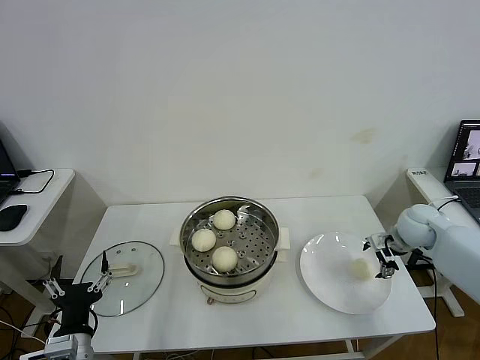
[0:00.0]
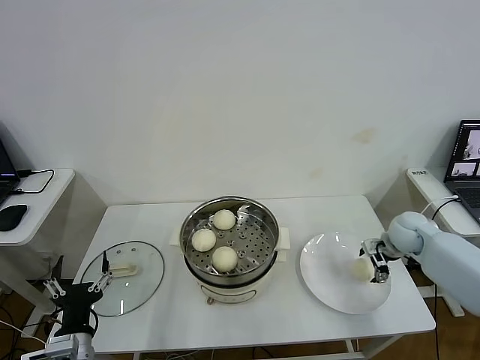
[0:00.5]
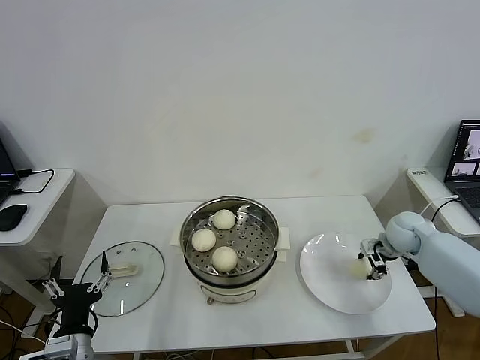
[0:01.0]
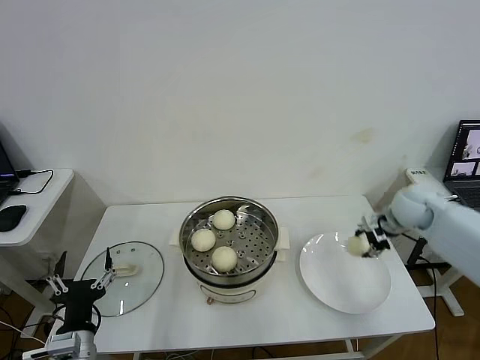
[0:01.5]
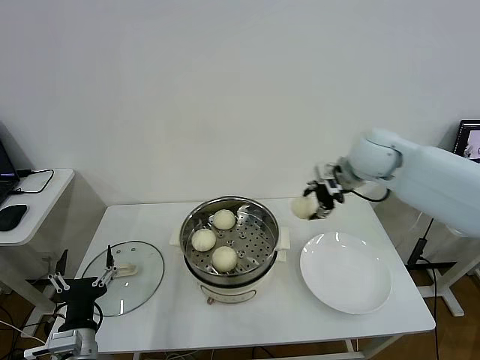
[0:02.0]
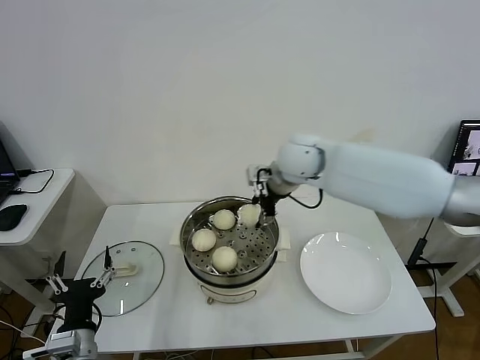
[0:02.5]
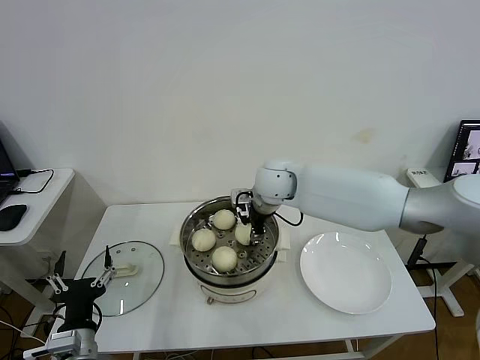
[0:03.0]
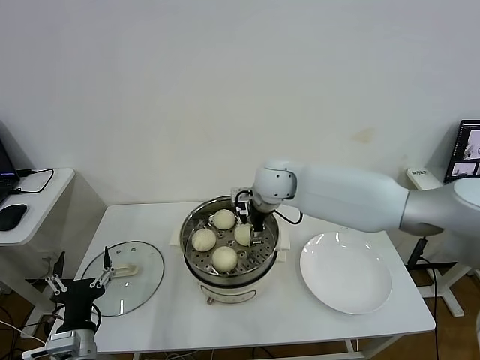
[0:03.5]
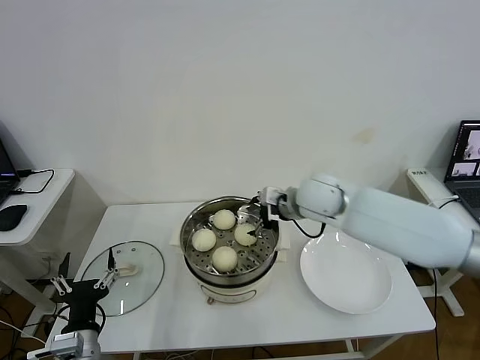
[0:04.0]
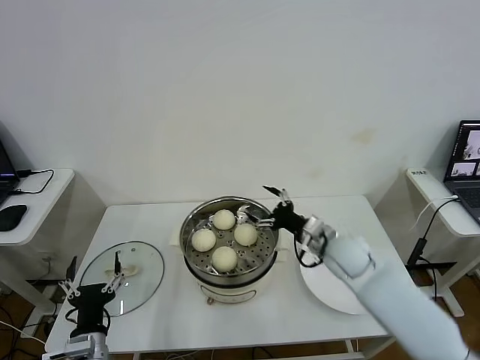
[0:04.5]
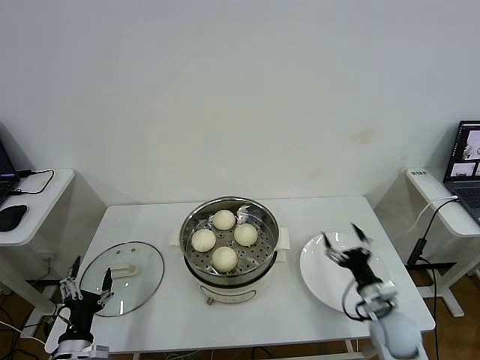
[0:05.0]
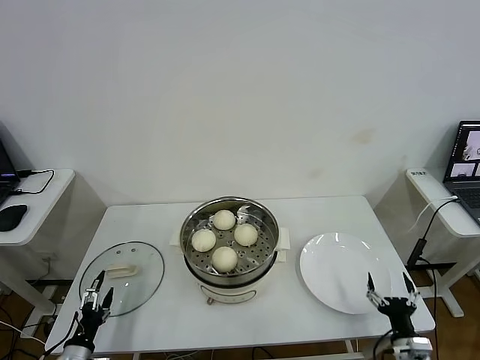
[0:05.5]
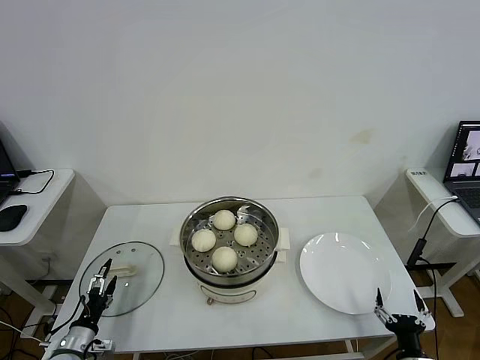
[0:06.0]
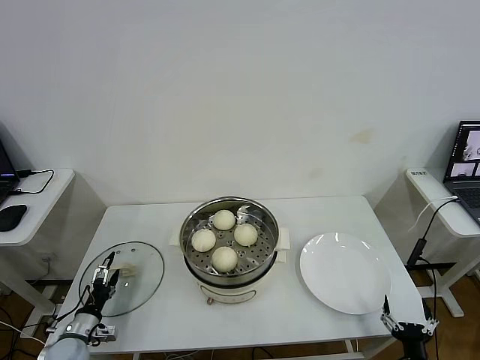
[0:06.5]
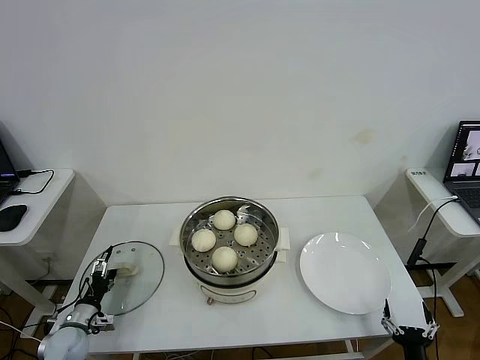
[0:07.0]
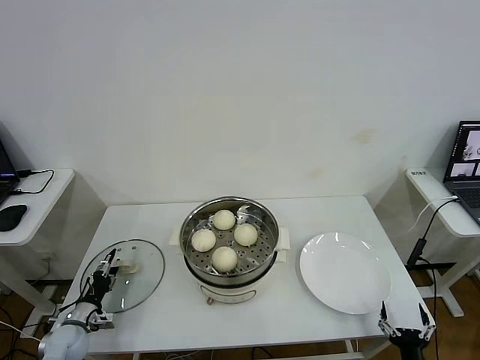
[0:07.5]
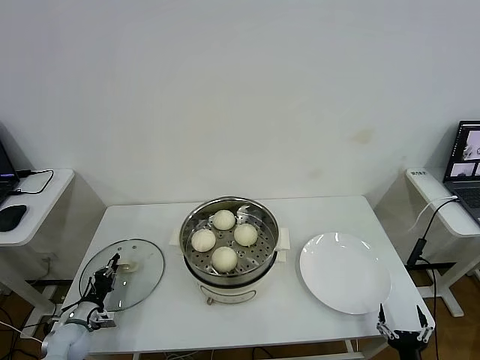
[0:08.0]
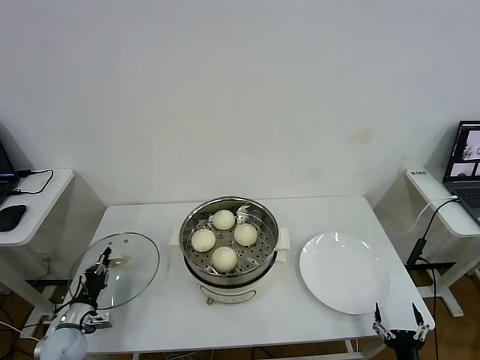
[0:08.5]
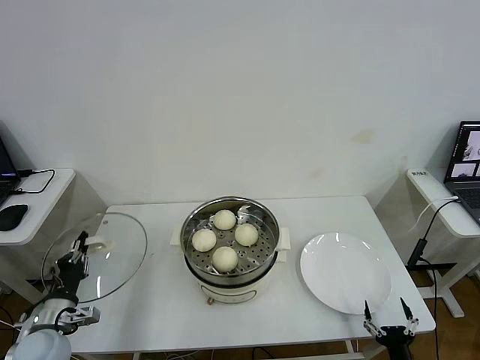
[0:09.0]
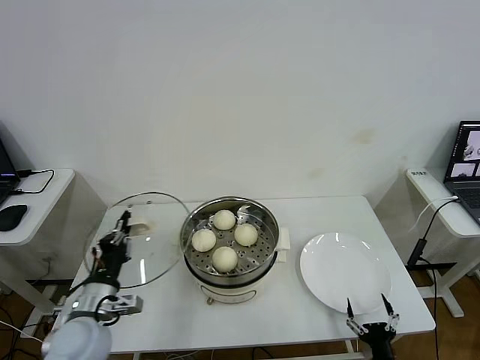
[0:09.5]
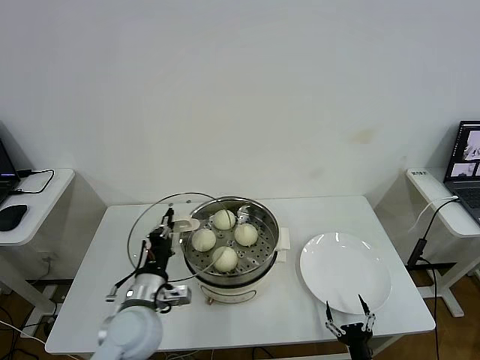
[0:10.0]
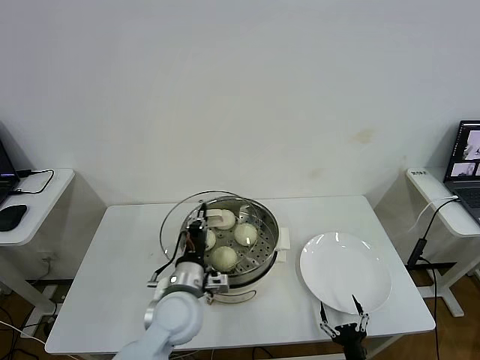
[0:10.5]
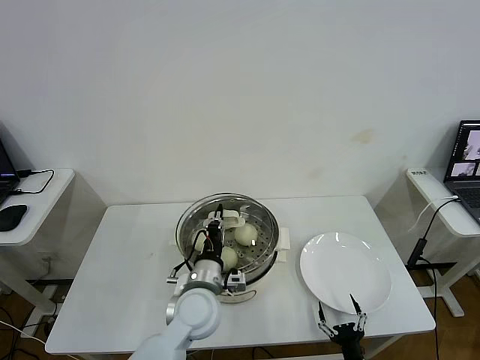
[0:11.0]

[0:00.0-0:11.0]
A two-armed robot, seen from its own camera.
Step, 0:01.5 to 0:03.0: Place the baozi on the steamer with right gripper.
Step, 0:03.5 to 0:08.0: Grasp the pot lid with left gripper.
0:00.0 to 0:02.0: The right gripper heads upward and to the left, covering roughly 25 cm, and closes up.
0:02.0 to 0:03.5: The right gripper shifts about 20 cm to the left and downward, and opens.
0:03.5 to 0:05.5: The right gripper is displaced backward, to the right and downward by roughly 50 cm. Meanwhile the left gripper goes some 15 cm downward and to the left.
0:05.5 to 0:07.5: The right gripper moves backward, about 5 cm, while the left gripper shifts about 10 cm forward.
0:07.5 to 0:09.0: The left gripper heads upward, covering about 10 cm, and closes up.
0:09.0 to 0:11.0: The right gripper moves to the left, approximately 10 cm. Meanwhile the left gripper goes about 30 cm to the right.

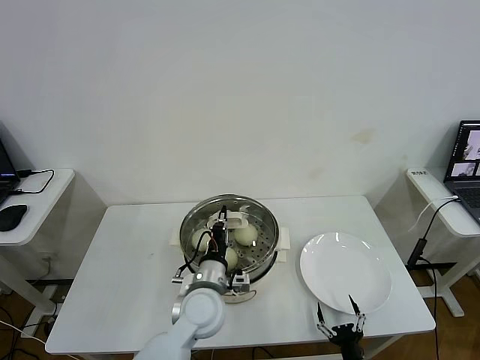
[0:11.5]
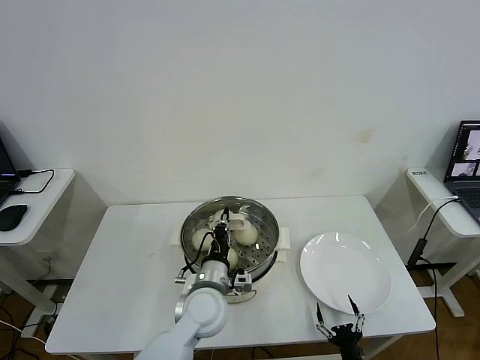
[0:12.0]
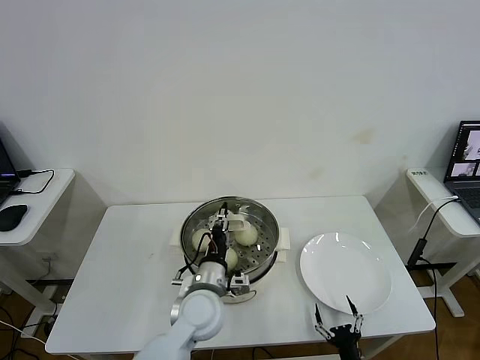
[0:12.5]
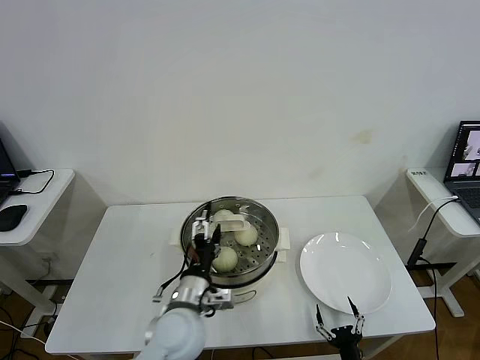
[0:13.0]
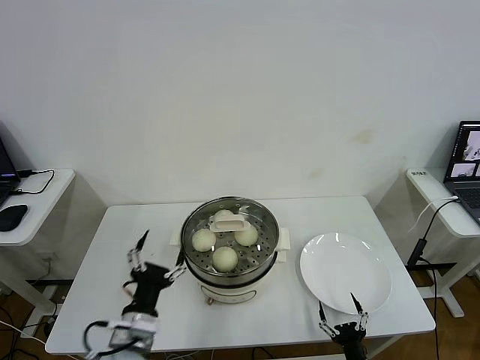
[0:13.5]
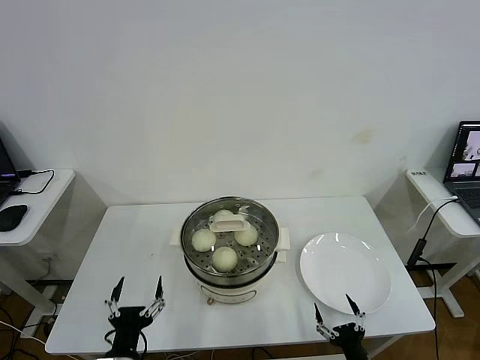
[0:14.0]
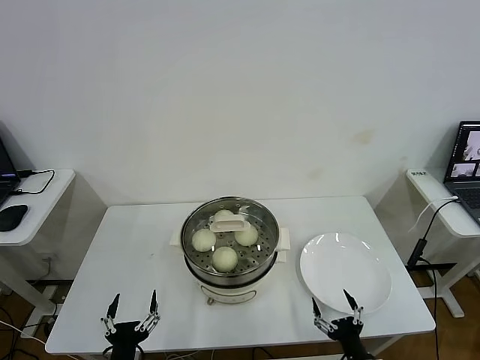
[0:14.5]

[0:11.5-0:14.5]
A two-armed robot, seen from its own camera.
0:11.5 to 0:13.0: The left gripper opens its fingers.
0:13.0 to 0:14.5: The right gripper is displaced upward by roughly 5 cm. Meanwhile the left gripper is displaced backward, to the left and downward by roughly 25 cm.

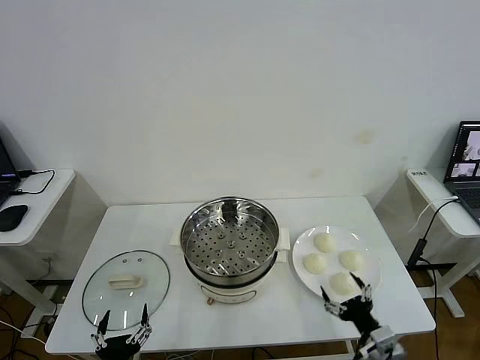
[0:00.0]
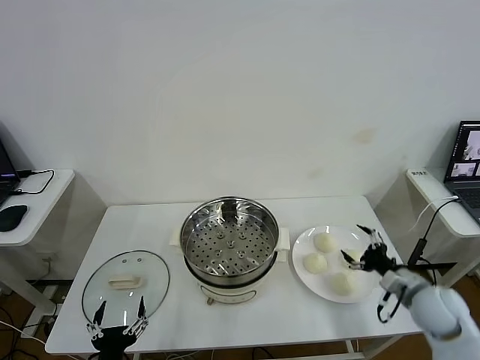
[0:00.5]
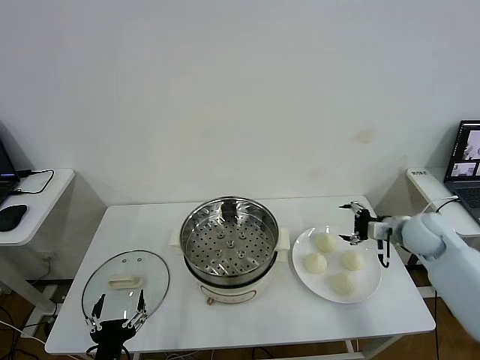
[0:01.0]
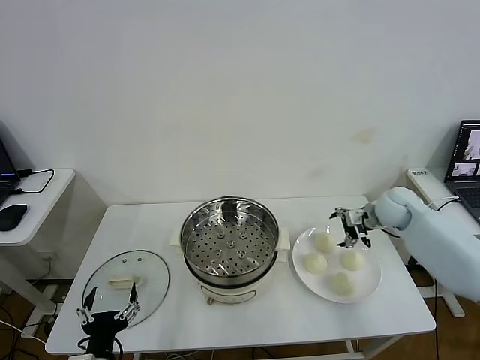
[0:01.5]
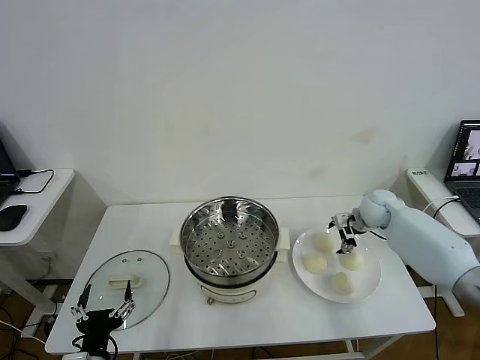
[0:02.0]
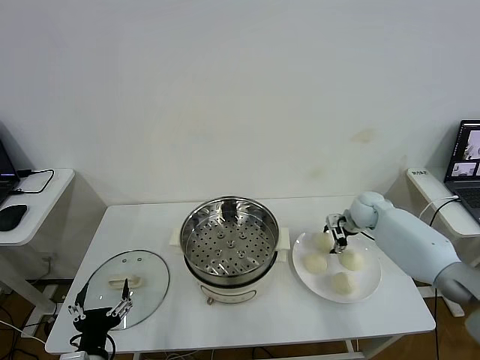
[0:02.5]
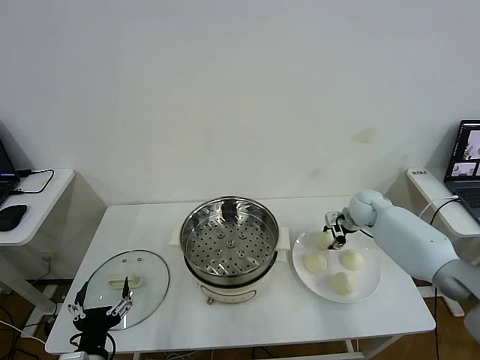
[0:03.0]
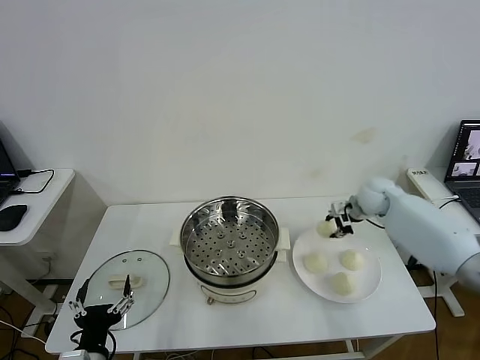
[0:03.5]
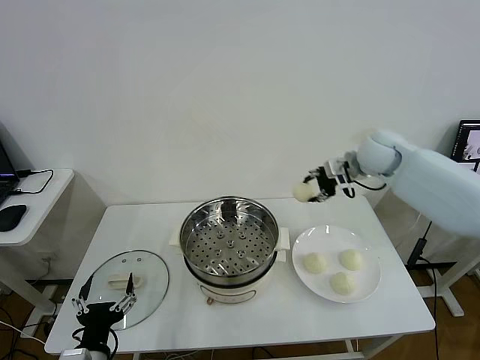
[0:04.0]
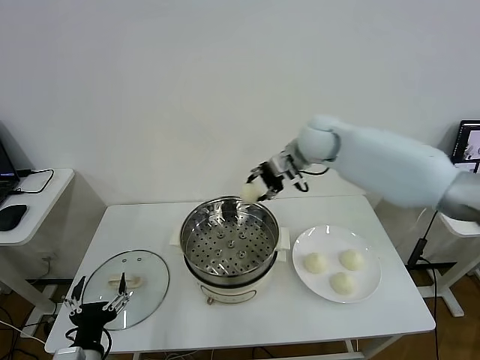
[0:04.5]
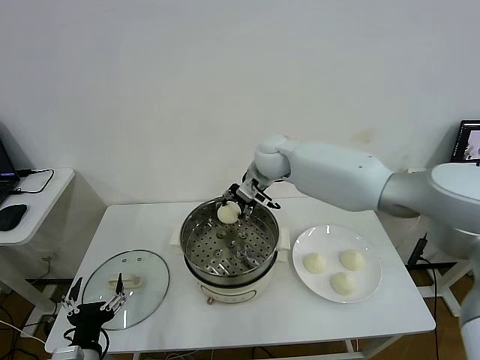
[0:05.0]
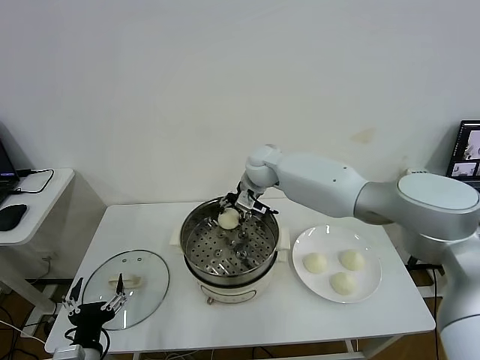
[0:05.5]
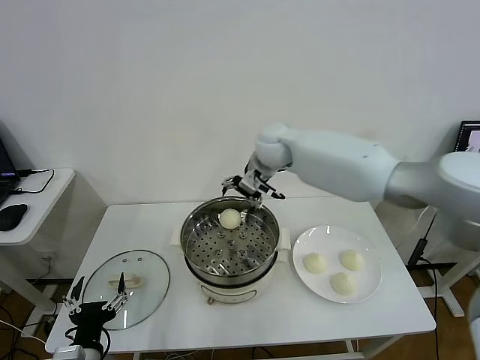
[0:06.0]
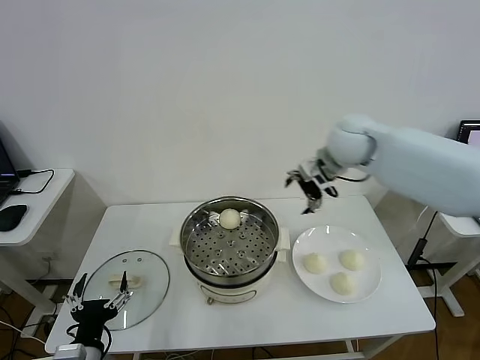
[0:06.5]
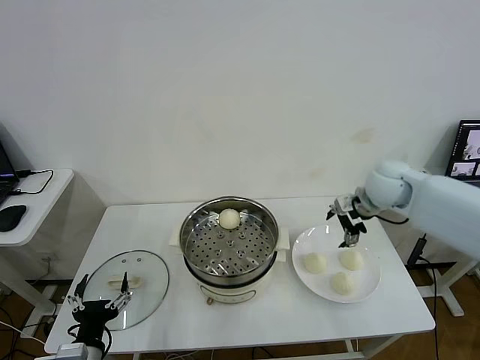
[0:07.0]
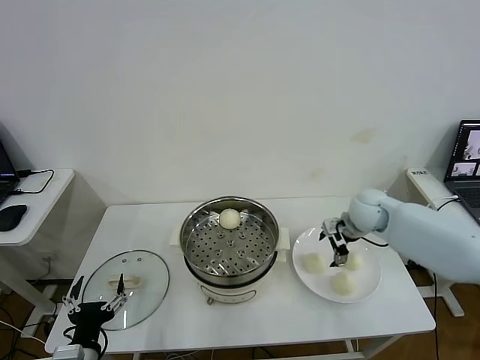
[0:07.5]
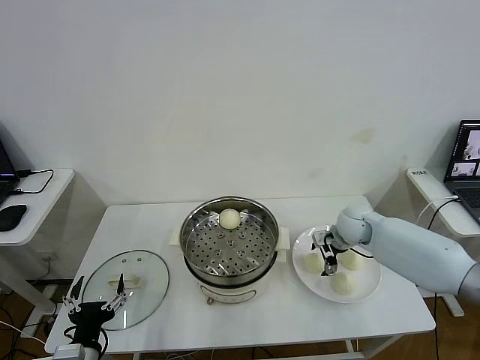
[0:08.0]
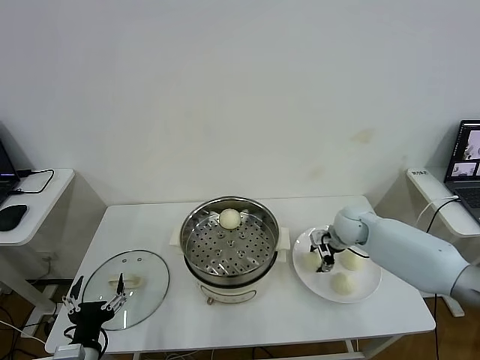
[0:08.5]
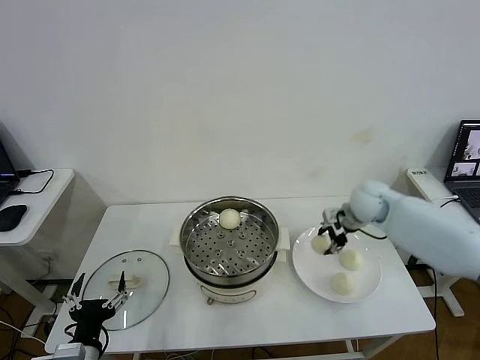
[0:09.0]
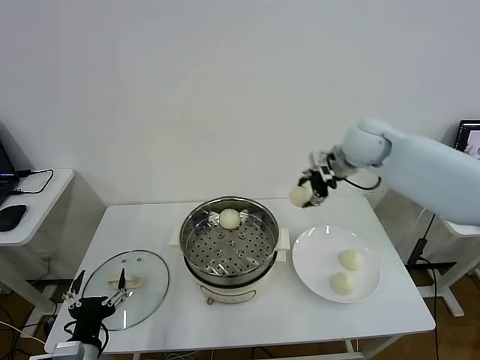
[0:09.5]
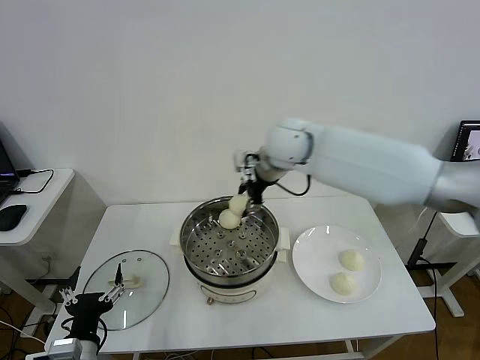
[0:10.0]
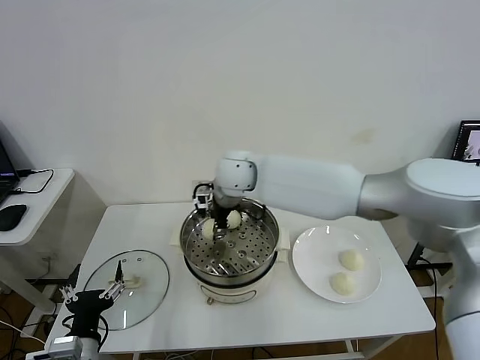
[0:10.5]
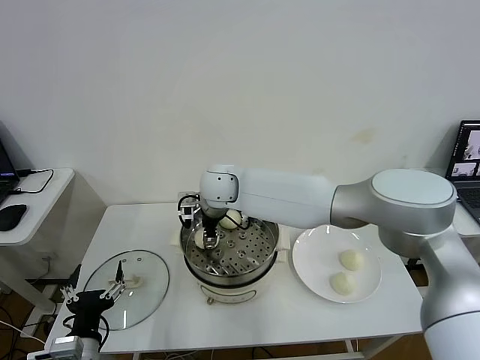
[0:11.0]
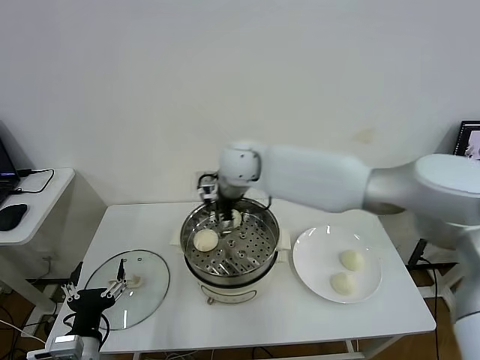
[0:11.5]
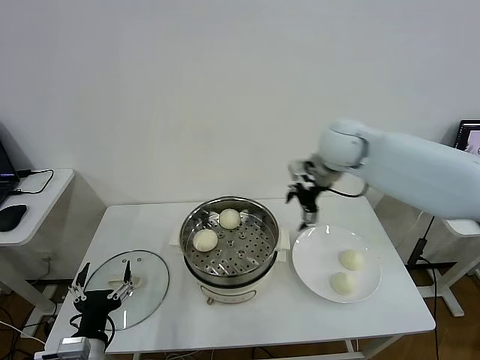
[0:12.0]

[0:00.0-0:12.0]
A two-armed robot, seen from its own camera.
Step, 0:00.0 to 0:02.5: Grasp the baozi in the plate with right gripper.
Step, 0:03.0 to 0:05.5: Place the baozi on the steamer with right gripper.
Step, 0:06.0 to 0:08.0: Grasp the baozi in the plate with right gripper.
Step, 0:09.0 to 0:11.0: Place the baozi on the steamer with right gripper.
0:02.0 to 0:04.0: The right gripper is displaced upward and to the left by some 20 cm, and closes up.
0:04.0 to 0:06.0: The right gripper travels to the left by some 20 cm, and opens up.
0:06.0 to 0:08.0: The right gripper heads downward and to the right, covering roughly 30 cm.
0:08.0 to 0:10.0: The right gripper goes roughly 30 cm upward and to the left, and closes.
0:10.0 to 0:12.0: The right gripper heads to the right, covering approximately 15 cm, and opens.
